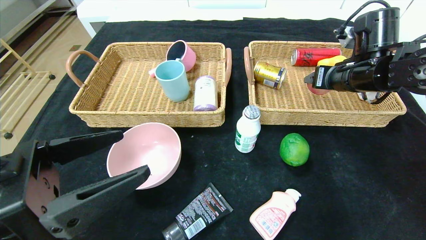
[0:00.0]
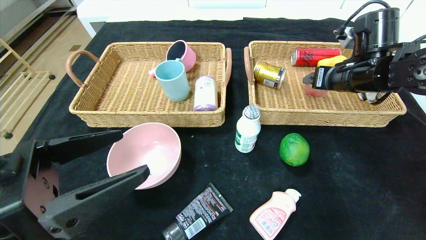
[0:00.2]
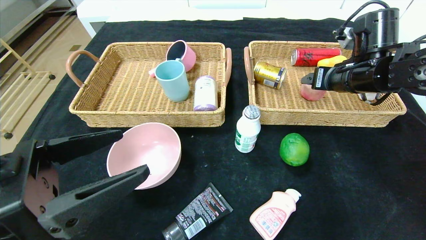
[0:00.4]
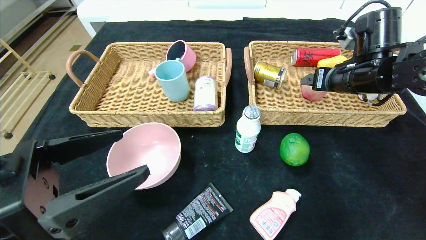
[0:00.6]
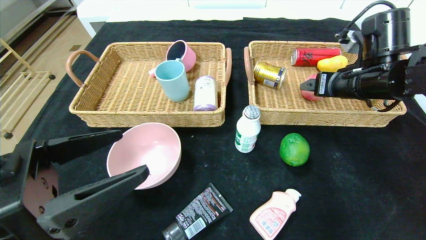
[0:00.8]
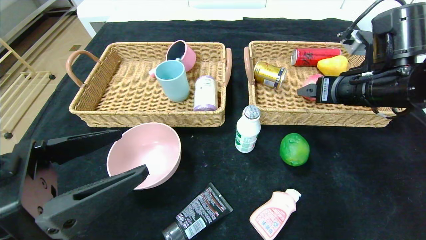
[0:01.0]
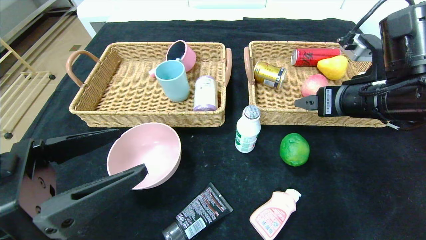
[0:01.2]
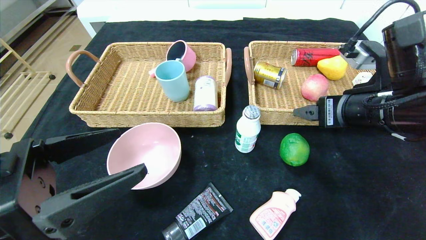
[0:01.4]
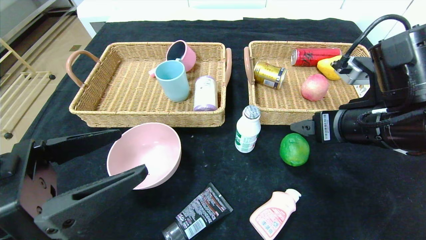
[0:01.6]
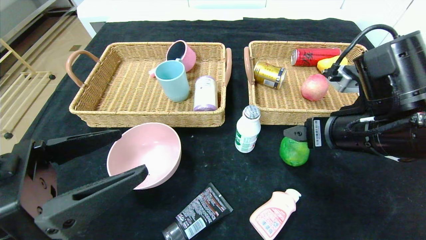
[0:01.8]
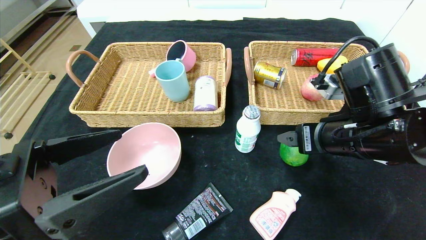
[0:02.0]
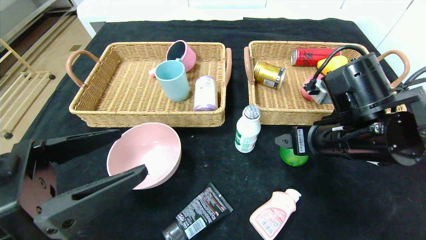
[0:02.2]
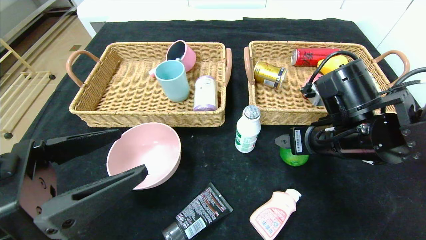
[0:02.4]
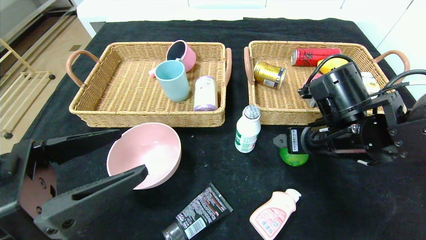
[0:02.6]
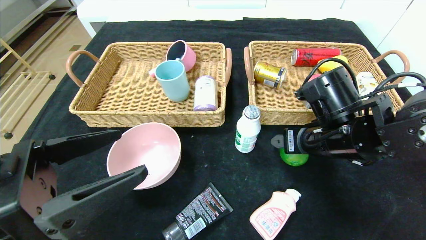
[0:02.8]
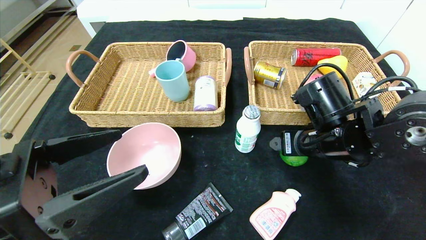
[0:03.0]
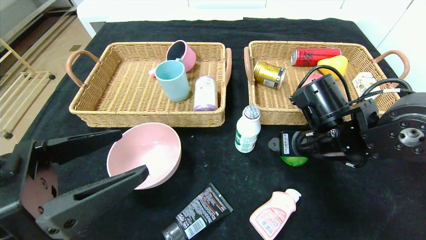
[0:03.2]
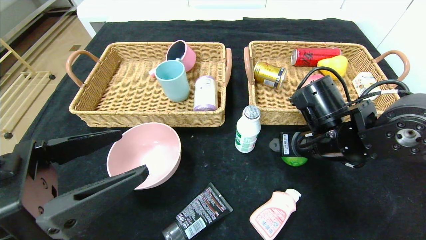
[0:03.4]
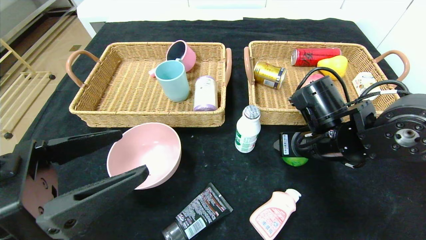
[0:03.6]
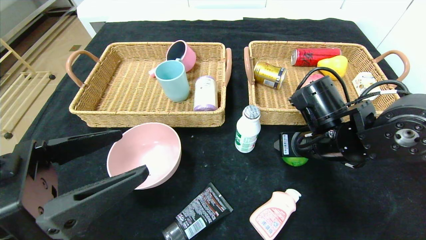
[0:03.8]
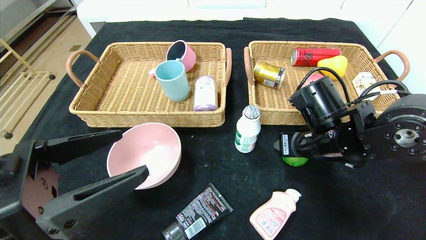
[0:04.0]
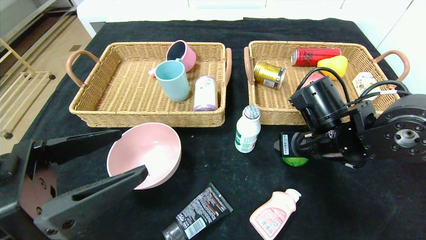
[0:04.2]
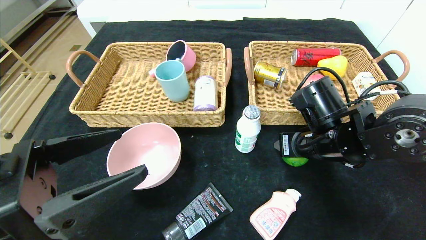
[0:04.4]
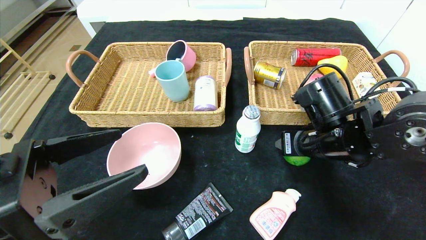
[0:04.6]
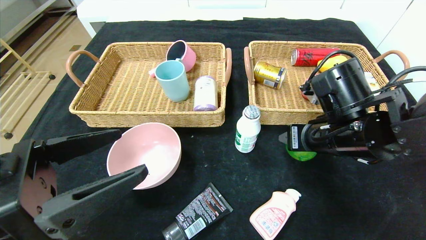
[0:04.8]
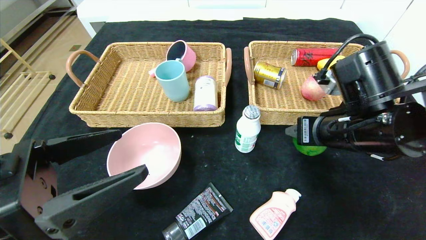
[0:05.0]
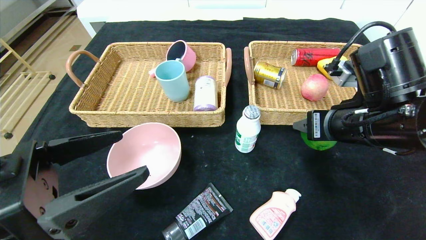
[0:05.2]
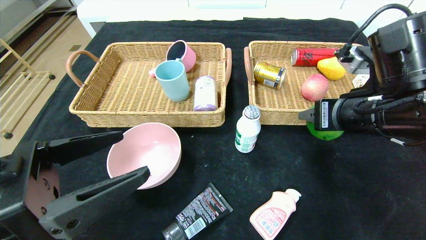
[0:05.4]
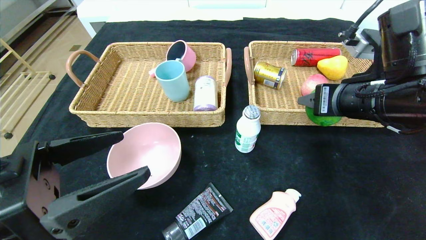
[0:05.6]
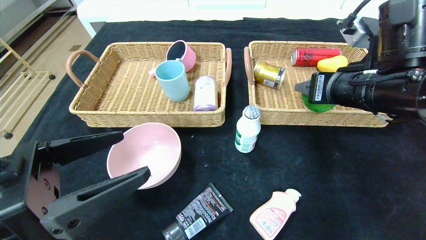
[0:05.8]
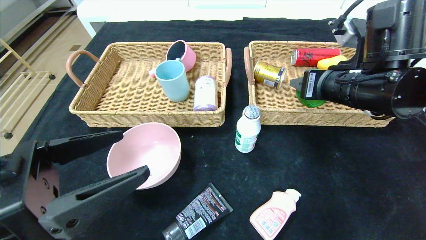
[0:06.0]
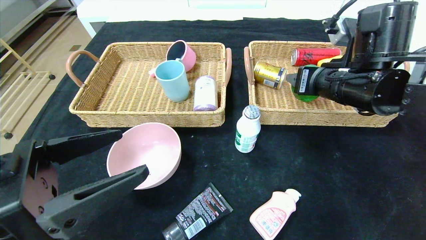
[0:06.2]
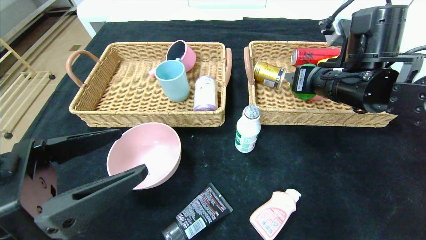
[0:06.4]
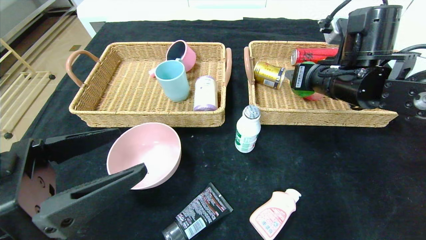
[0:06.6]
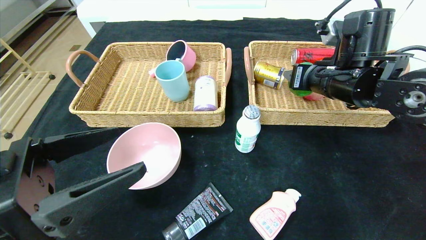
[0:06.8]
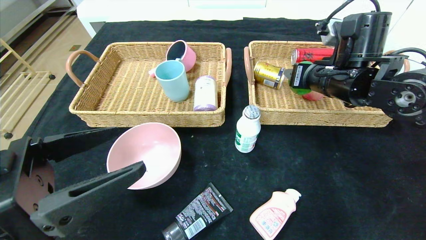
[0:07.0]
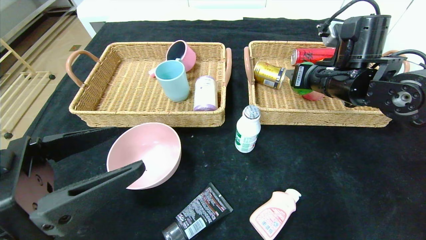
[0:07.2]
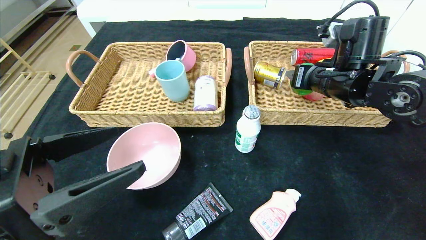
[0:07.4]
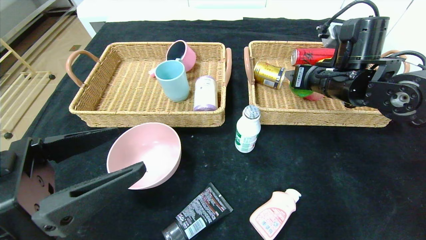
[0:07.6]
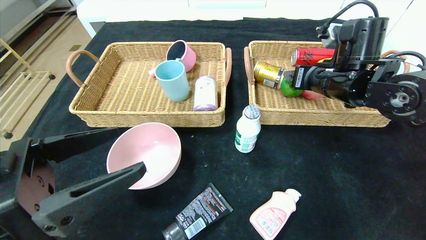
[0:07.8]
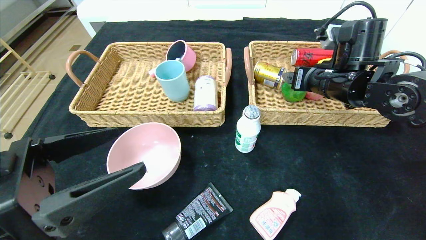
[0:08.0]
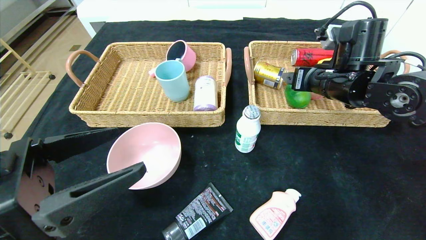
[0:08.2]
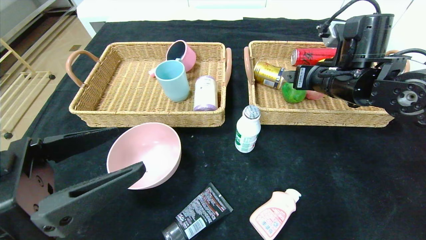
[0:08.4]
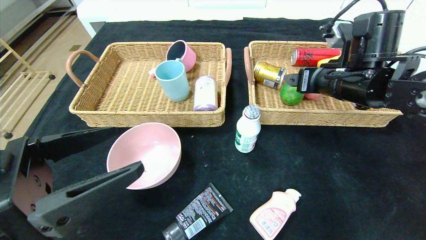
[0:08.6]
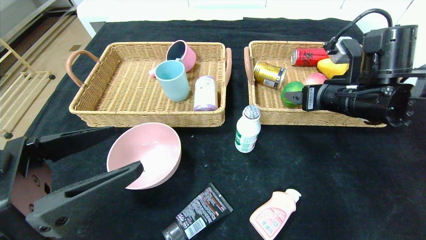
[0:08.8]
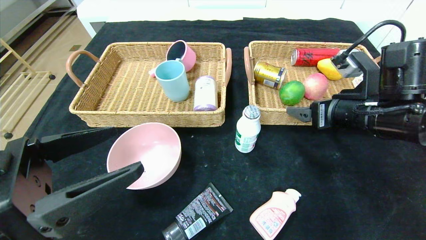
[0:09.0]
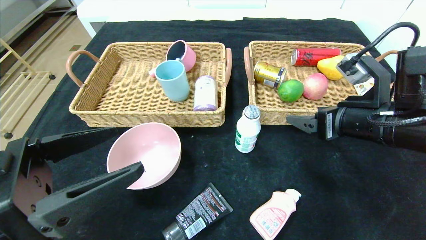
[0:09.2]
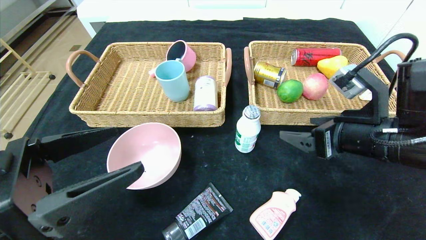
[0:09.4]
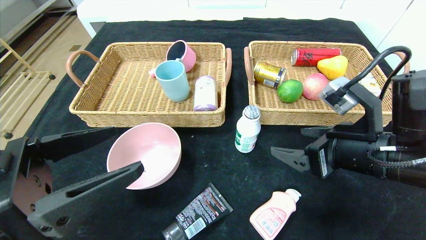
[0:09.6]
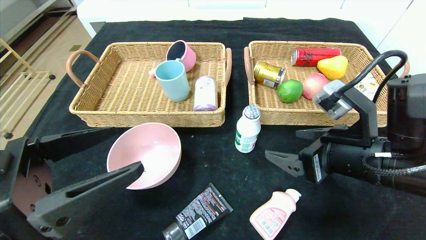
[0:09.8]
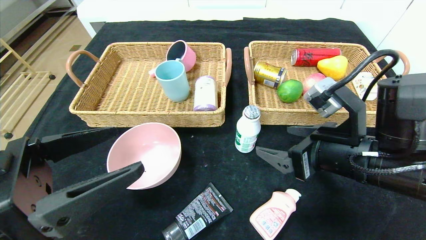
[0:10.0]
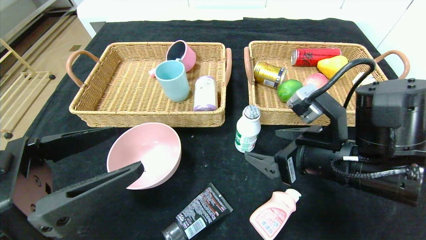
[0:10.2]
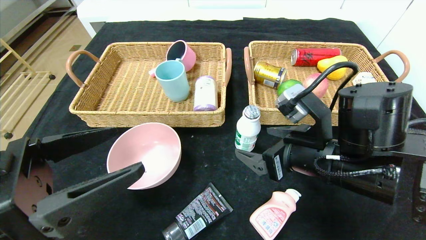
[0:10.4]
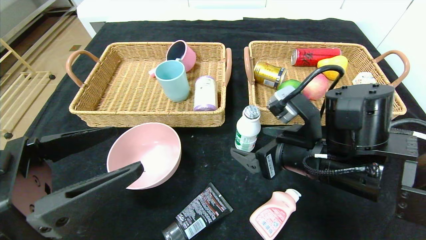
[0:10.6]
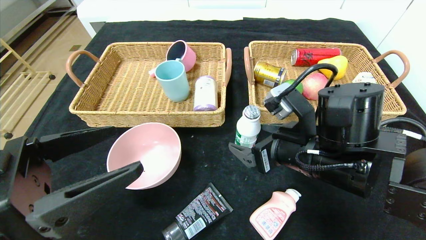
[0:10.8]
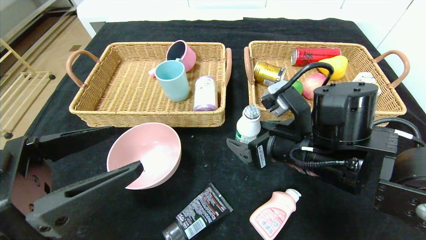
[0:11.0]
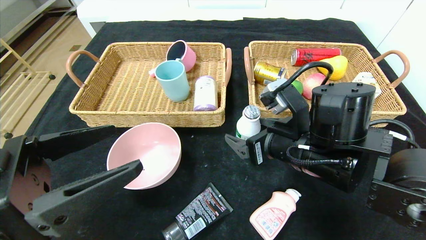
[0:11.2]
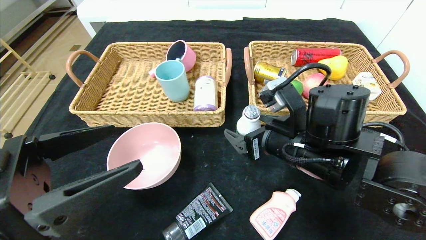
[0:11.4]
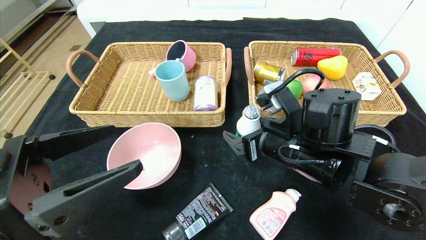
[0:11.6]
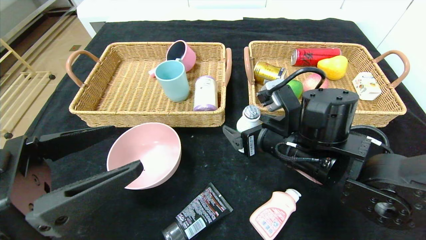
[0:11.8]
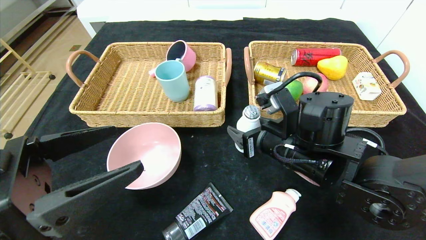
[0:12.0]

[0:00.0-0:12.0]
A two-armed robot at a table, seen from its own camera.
Step, 0:01.8 to 0:09.6: Pick up the lime and put it in the right basket.
0:00.0 to 0:01.6: The right gripper goes roughly 15 cm backward, and opens its fingers.
0:01.6 to 0:03.0: The right gripper is displaced downward by some 5 cm.
0:03.0 to 0:04.4: The right gripper closes its fingers.
0:04.4 to 0:06.0: The right gripper travels upward by approximately 10 cm.
0:06.0 to 0:07.6: The right gripper travels forward by some 5 cm.
0:07.6 to 0:09.0: The right gripper is displaced backward by some 10 cm, and opens its fingers.
0:09.0 to 0:10.4: The right gripper moves to the left and backward, some 10 cm.
0:10.4 to 0:12.0: The right gripper ends up roughly 5 cm from where it was, and closes up.

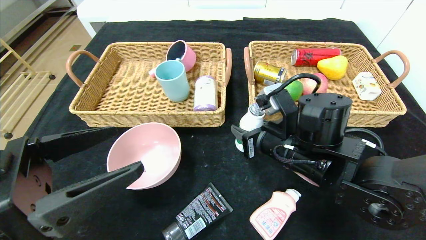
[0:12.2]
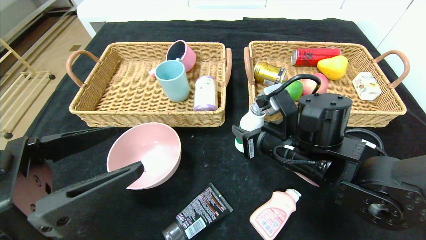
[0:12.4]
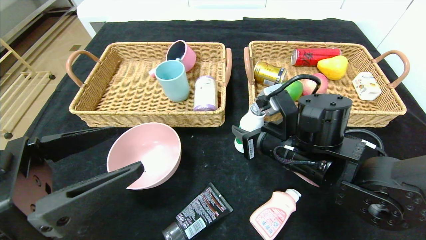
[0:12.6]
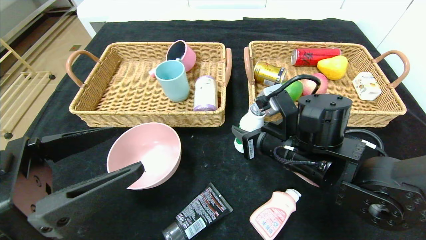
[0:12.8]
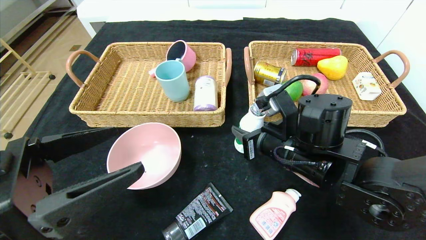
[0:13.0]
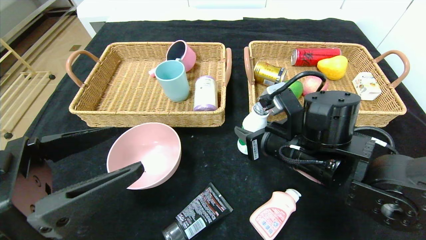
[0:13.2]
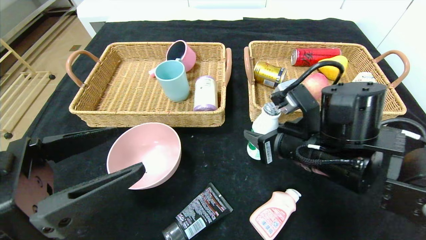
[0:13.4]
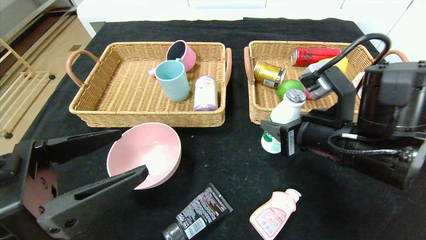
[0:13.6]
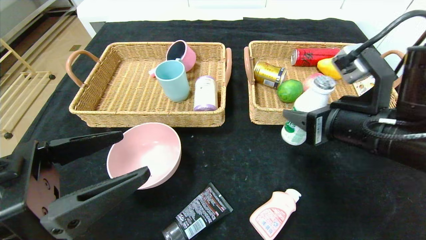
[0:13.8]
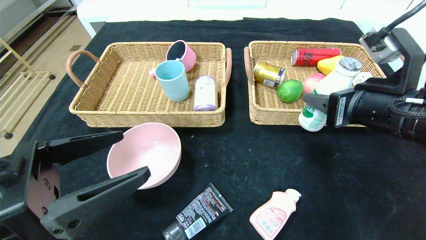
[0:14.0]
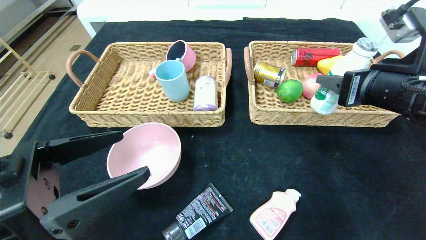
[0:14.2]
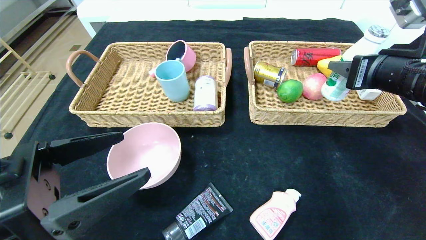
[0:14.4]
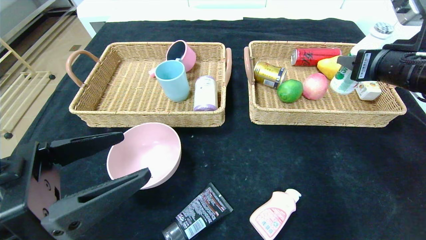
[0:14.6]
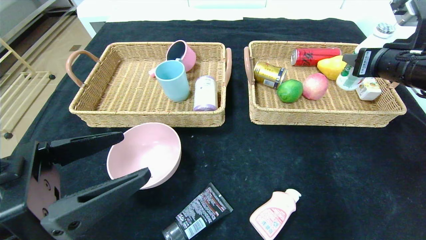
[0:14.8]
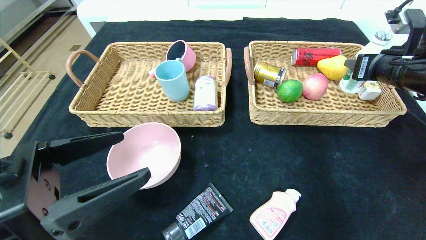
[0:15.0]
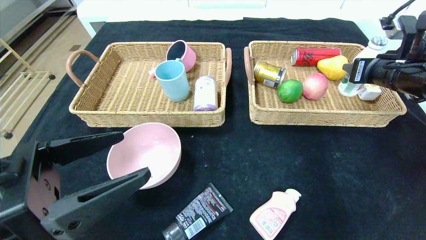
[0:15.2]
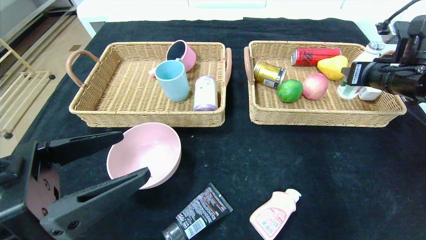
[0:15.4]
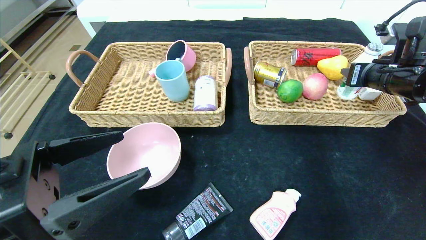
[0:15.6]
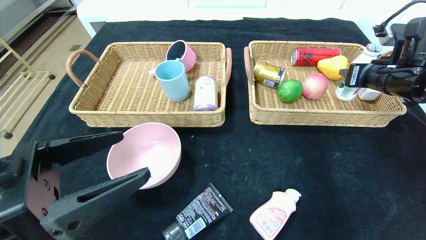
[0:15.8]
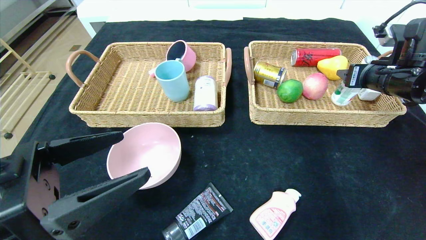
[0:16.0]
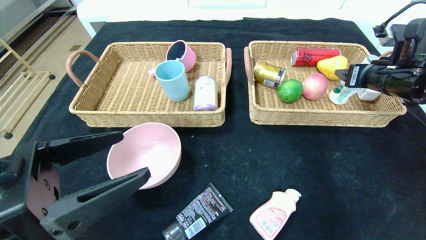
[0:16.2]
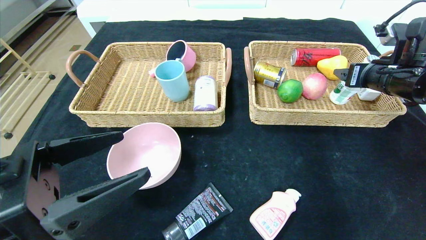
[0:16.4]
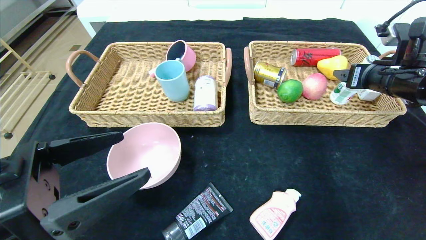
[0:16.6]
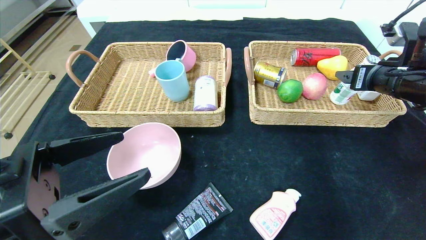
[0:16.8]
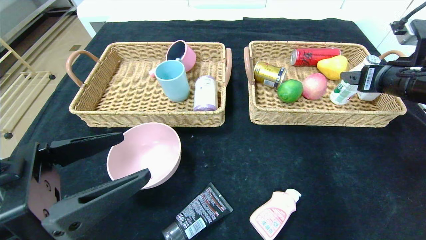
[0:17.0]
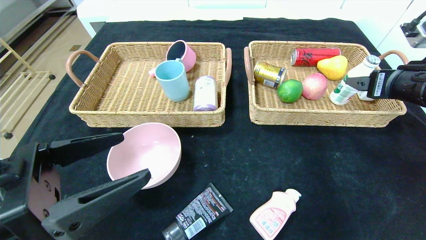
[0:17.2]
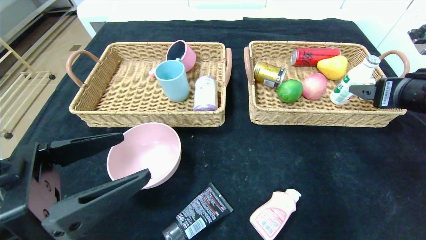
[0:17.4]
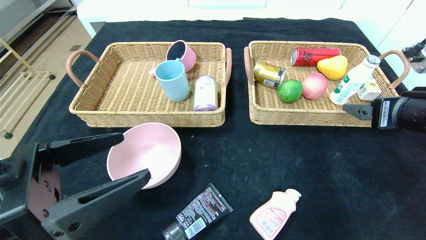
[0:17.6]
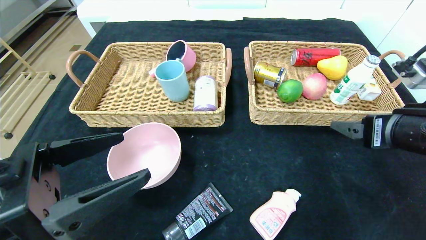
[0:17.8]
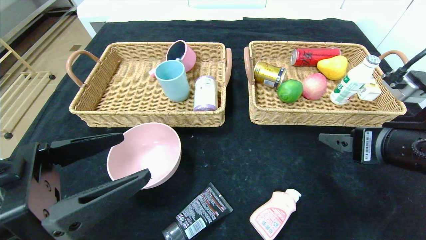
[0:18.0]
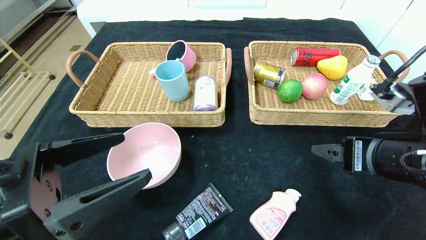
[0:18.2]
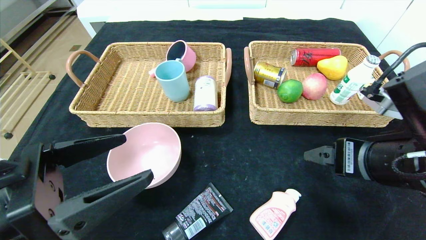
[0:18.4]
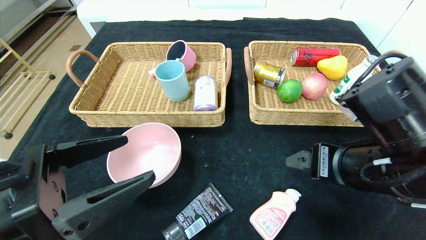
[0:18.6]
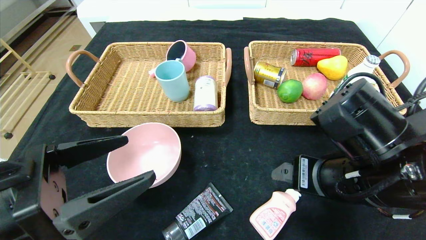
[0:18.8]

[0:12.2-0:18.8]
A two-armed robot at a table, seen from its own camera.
Step, 0:12.2 to 0:18.6: Pick up the ad milk and put it in the right basket.
0:12.2 to 0:13.8: The right gripper shifts about 10 cm to the right and upward.
0:13.8 to 0:15.4: The right gripper moves forward and to the right, roughly 15 cm.
0:15.4 to 0:17.2: The right gripper heads backward, covering roughly 5 cm, and opens up.
0:17.2 to 0:18.8: The right gripper moves to the left, backward and downward, about 20 cm.
